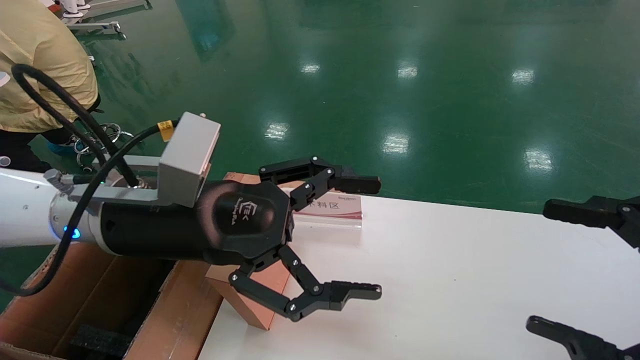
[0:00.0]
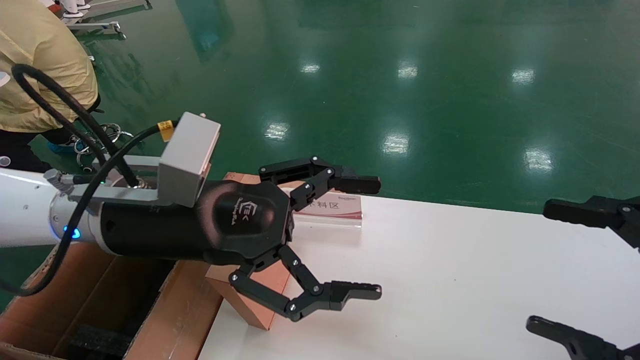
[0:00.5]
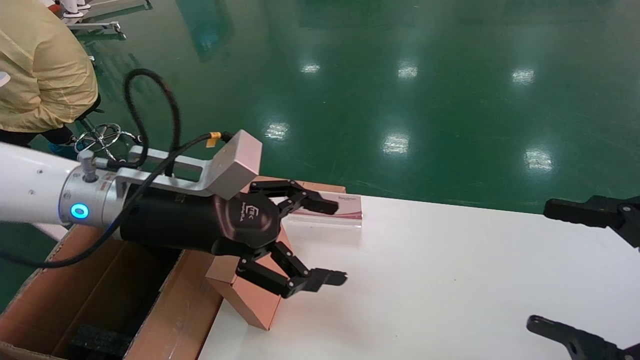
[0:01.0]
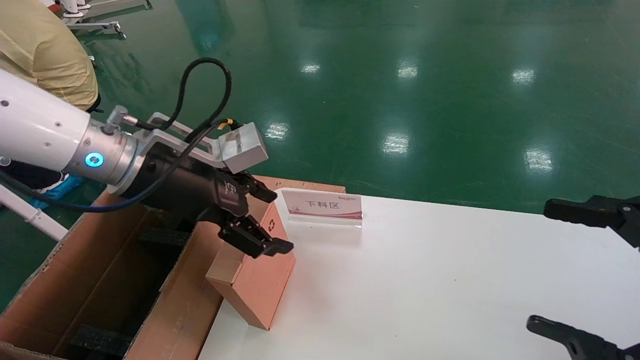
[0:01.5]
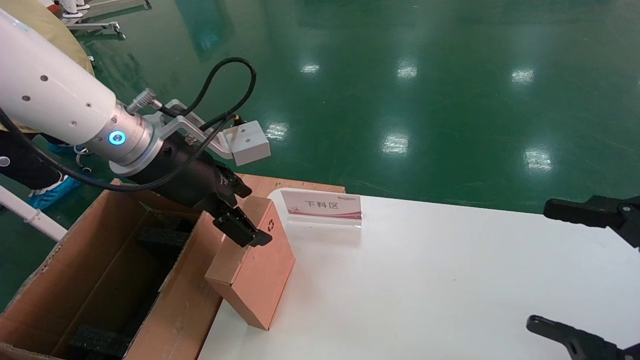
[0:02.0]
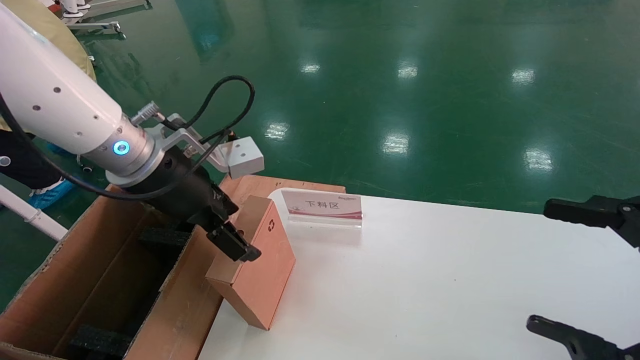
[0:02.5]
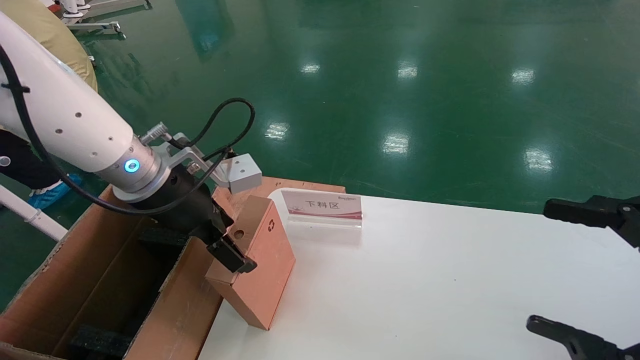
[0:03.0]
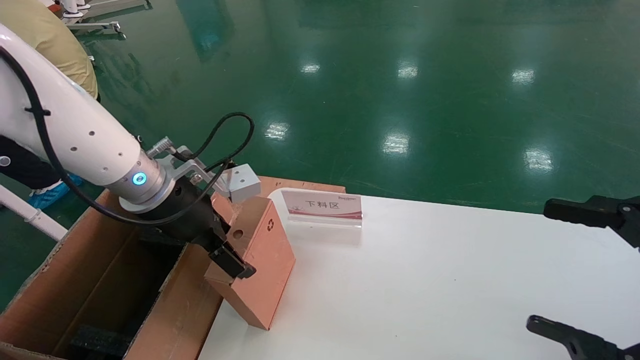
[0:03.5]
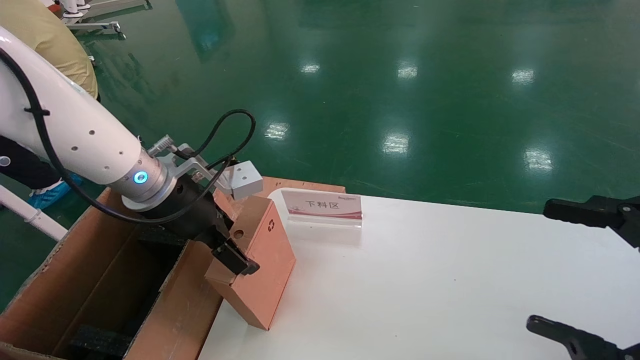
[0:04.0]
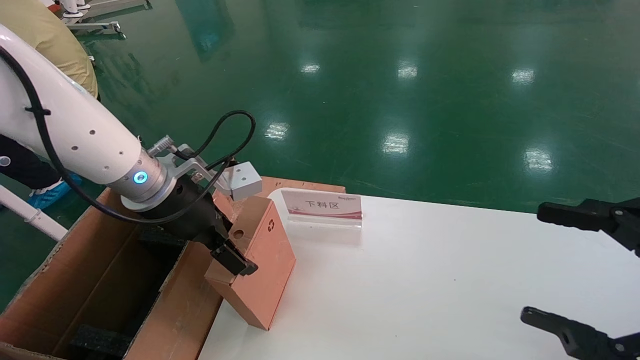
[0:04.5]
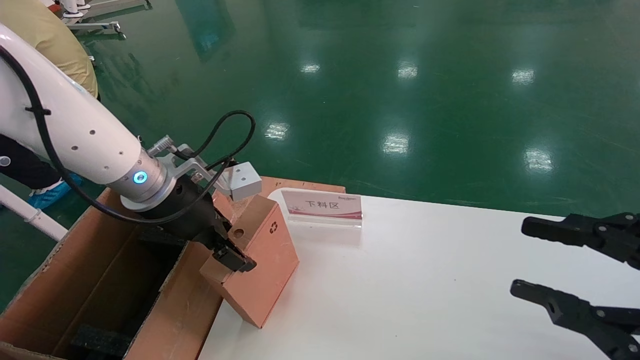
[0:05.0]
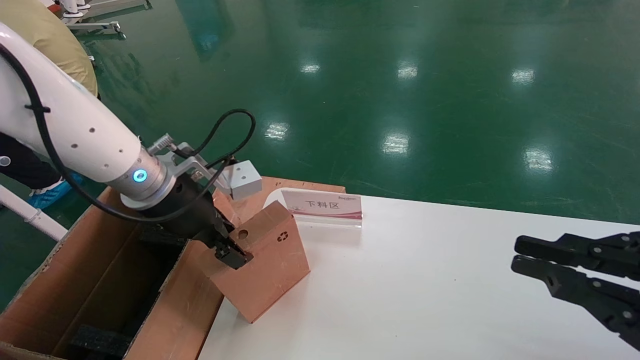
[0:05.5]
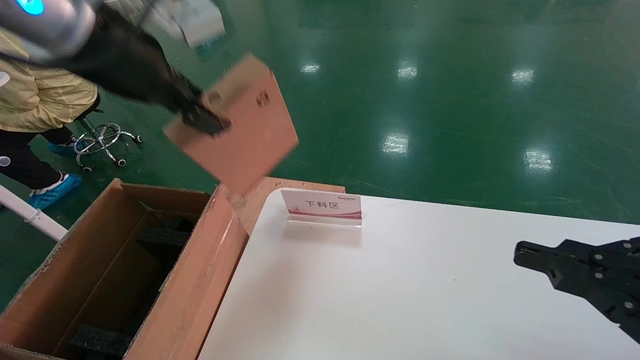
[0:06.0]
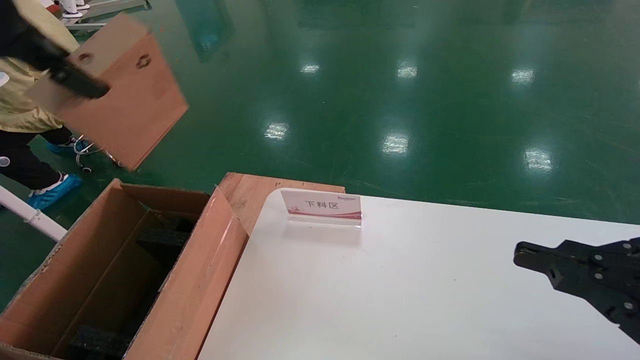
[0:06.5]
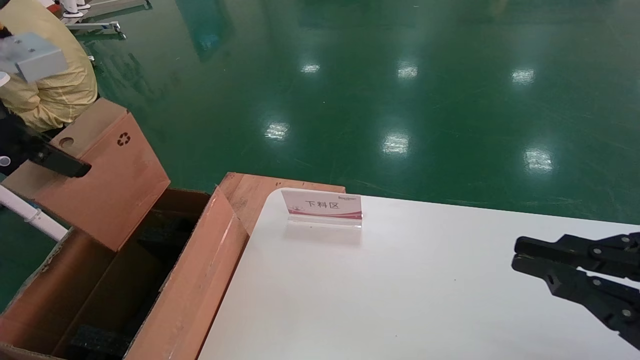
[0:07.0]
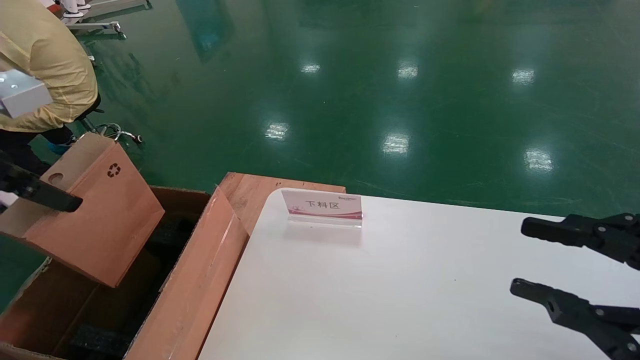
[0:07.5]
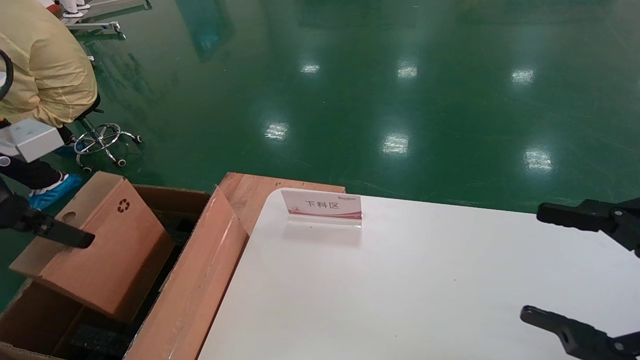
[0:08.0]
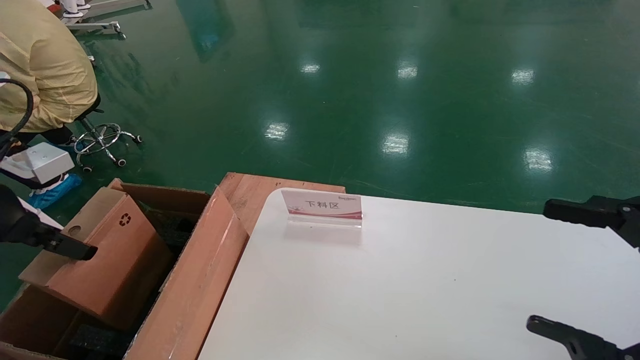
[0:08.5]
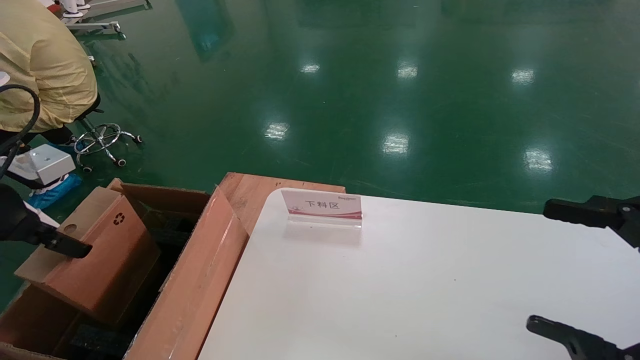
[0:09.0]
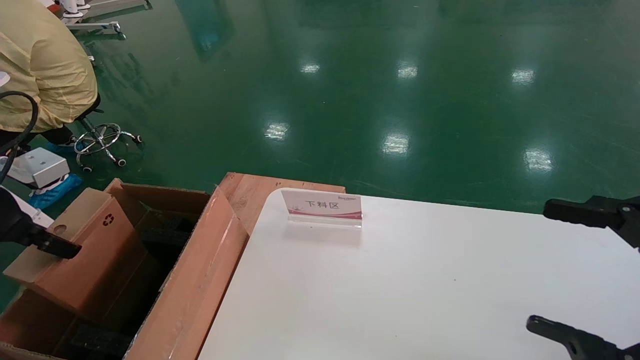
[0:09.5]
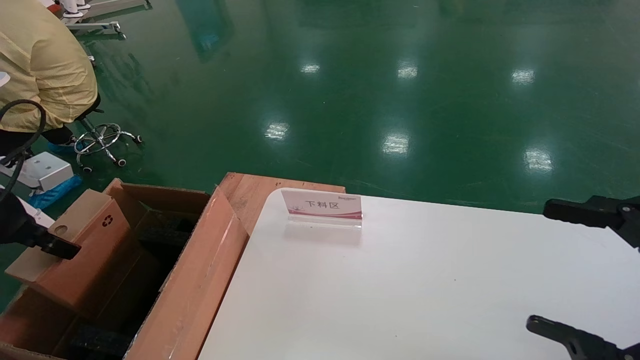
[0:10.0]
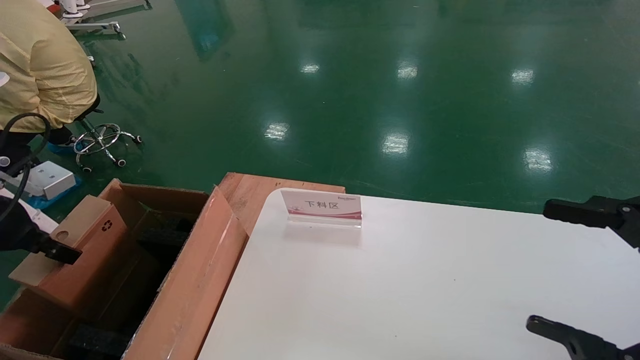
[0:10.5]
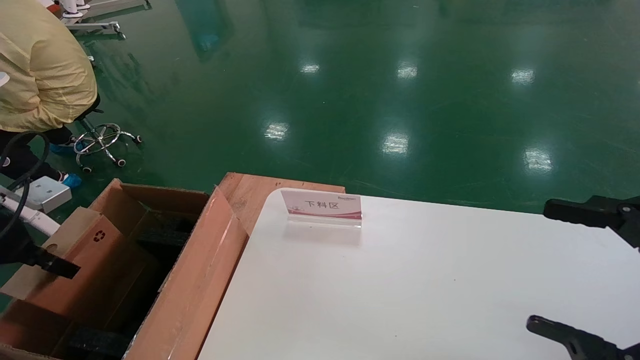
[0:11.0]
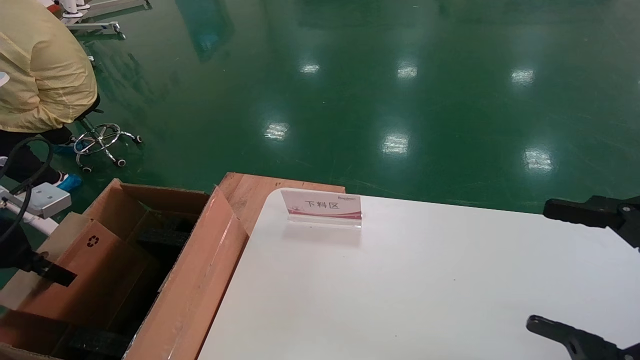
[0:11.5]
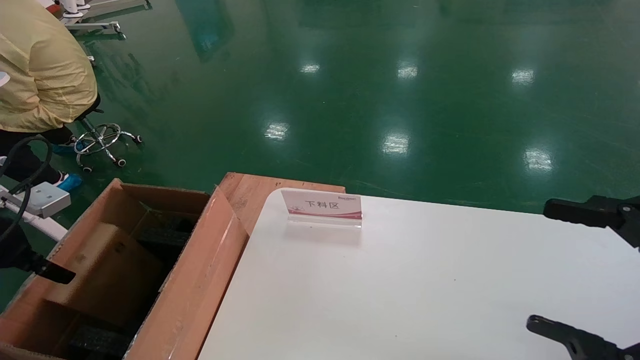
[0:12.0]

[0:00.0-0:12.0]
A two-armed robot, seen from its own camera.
Task of the whole recording: pick up the small cardboard box and load it into the large cardboard box.
Step, 0:01.0 to 0:05.0: Pick up the mouse and power cord box.
0:00.0 to 0:02.0: The left gripper is displaced forward by some 5 cm.
0:02.0 to 0:04.0: The left gripper heads downward, covering approximately 5 cm.
0:04.0 to 0:06.0: The right gripper closes its fingers. Meanwhile the left gripper moves upward, some 20 cm, and closes its fingers.
0:06.0 to 0:08.0: The left gripper moves to the left, downward and backward, approximately 20 cm; the right gripper opens.
0:08.0 to 0:10.0: The left gripper goes about 10 cm downward and to the left.
0:10.0 to 0:12.0: The left gripper changes place by approximately 5 cm.

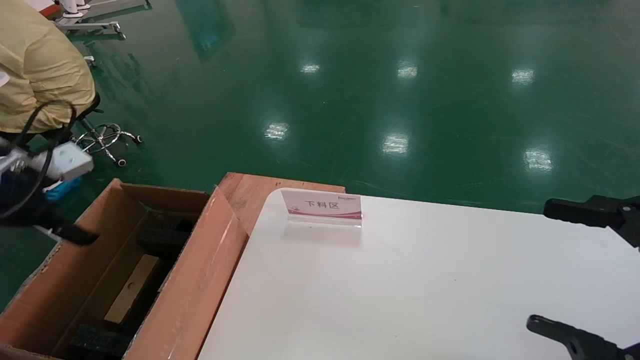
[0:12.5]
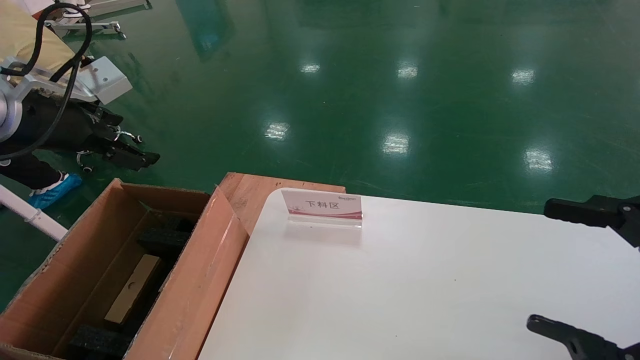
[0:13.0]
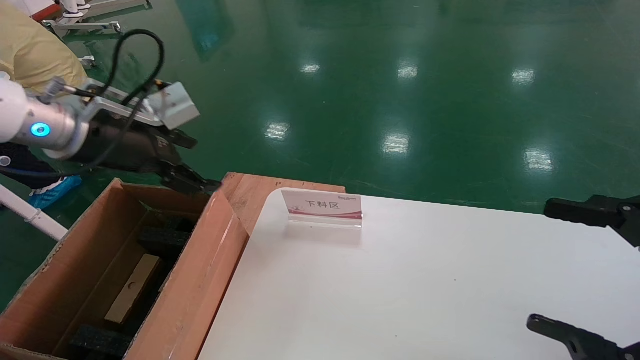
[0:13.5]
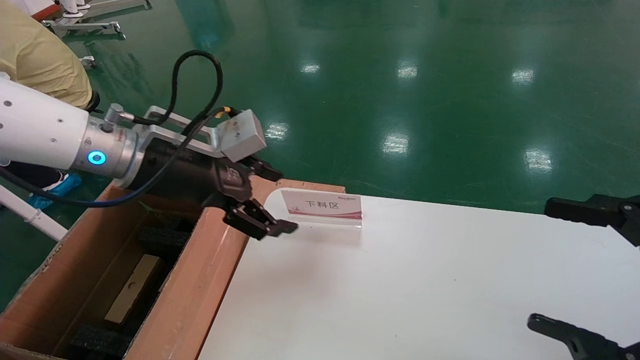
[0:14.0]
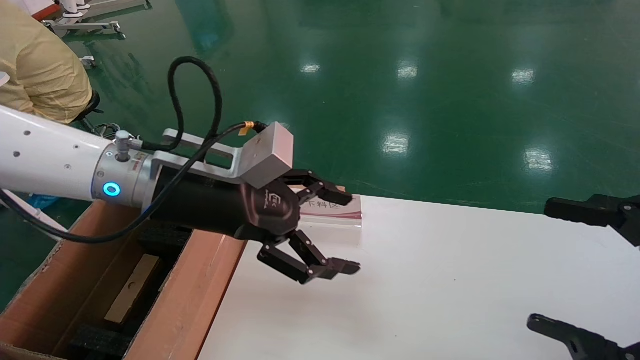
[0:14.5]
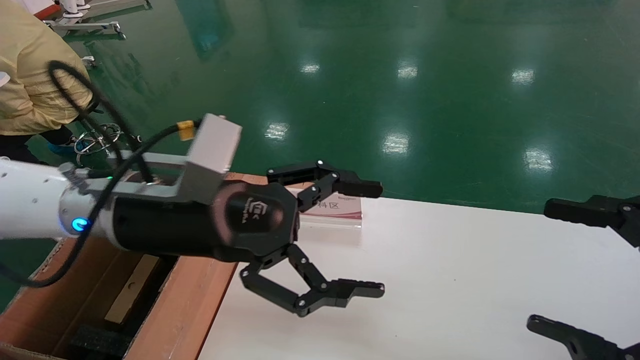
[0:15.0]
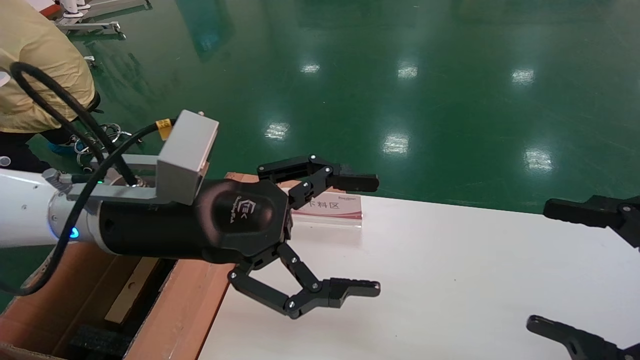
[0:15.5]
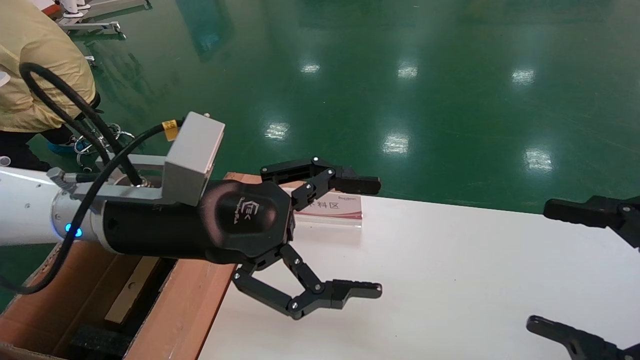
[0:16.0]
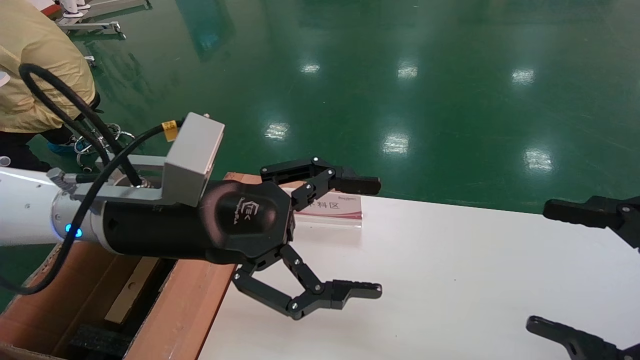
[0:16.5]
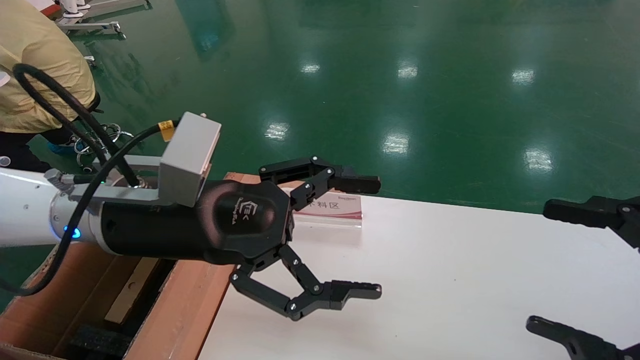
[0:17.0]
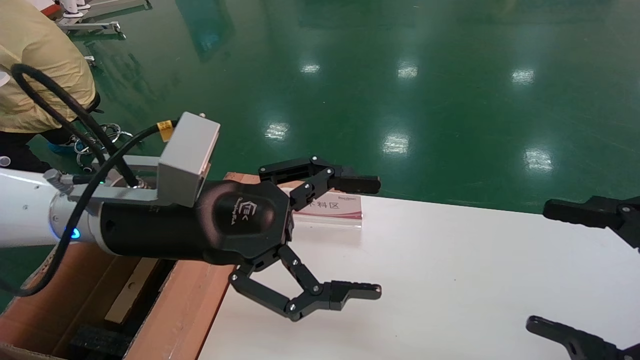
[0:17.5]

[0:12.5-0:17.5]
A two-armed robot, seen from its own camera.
Task of the whole recording: pick up the small cardboard box and load it into the large cardboard box.
0:12.5 to 0:15.0: The left gripper is displaced to the right by roughly 25 cm.
0:15.0 to 0:17.5: The grippers stay close to where they were, moving slightly.
